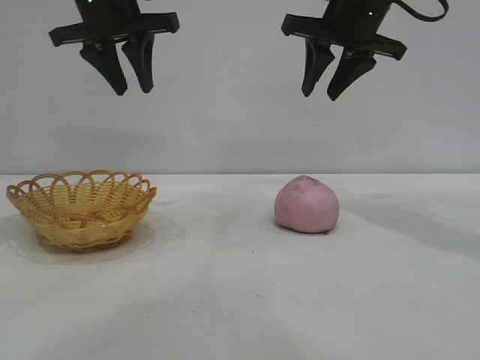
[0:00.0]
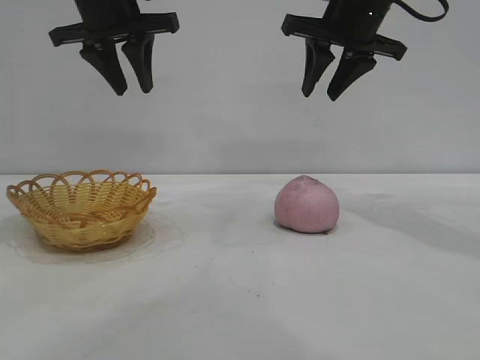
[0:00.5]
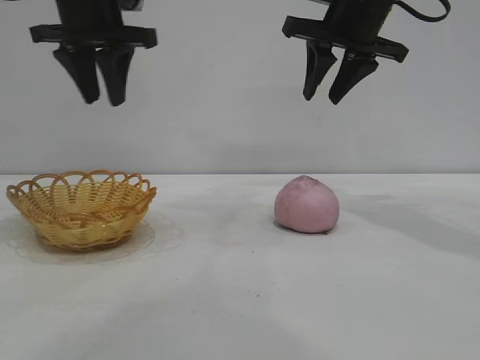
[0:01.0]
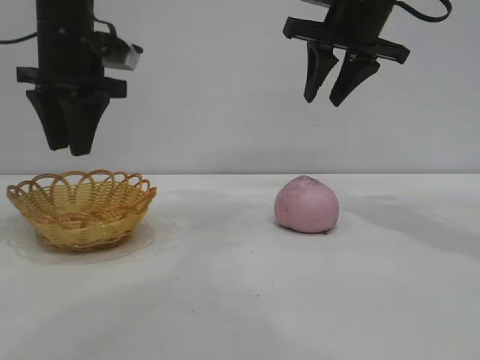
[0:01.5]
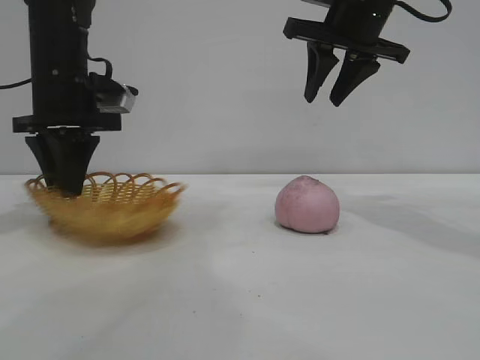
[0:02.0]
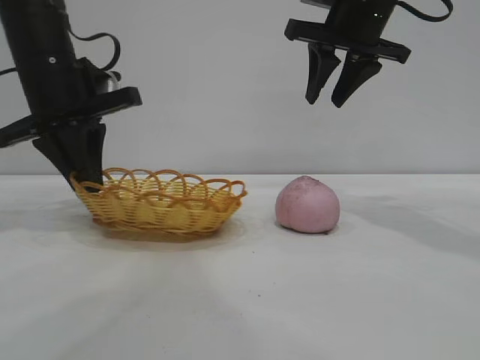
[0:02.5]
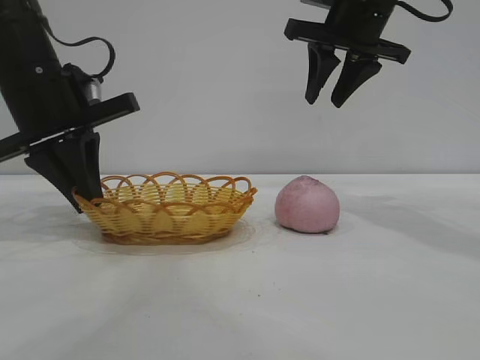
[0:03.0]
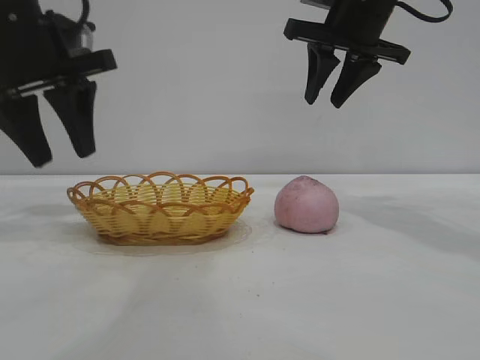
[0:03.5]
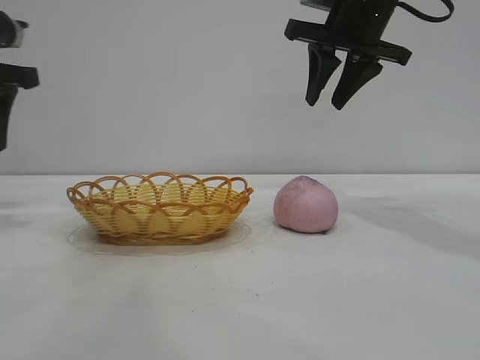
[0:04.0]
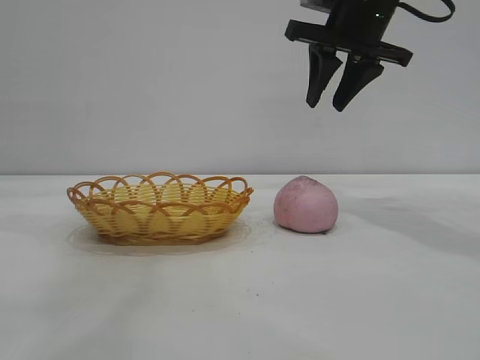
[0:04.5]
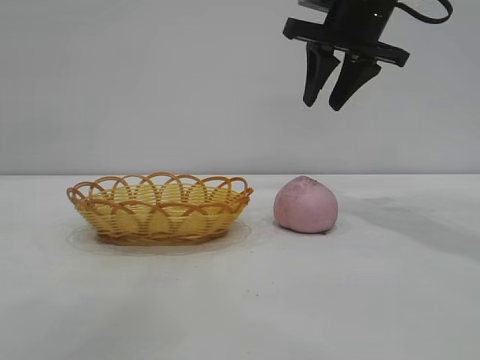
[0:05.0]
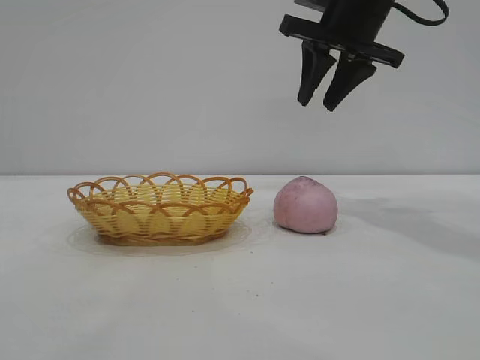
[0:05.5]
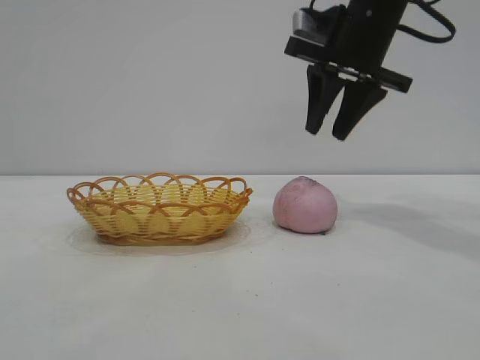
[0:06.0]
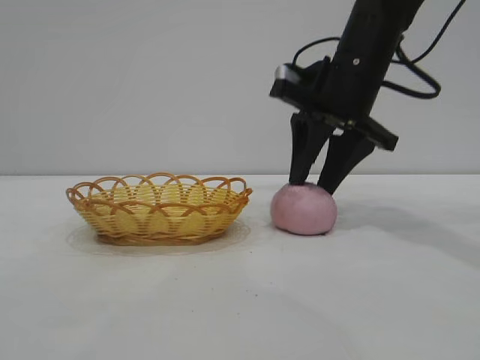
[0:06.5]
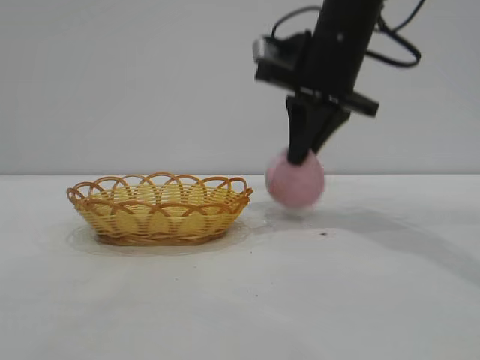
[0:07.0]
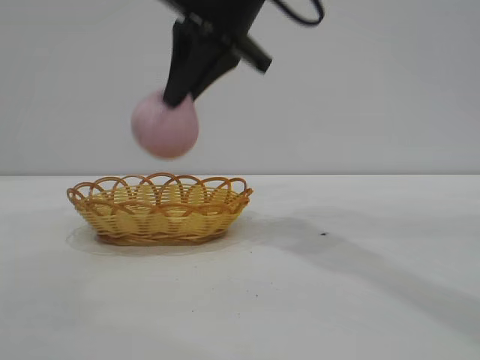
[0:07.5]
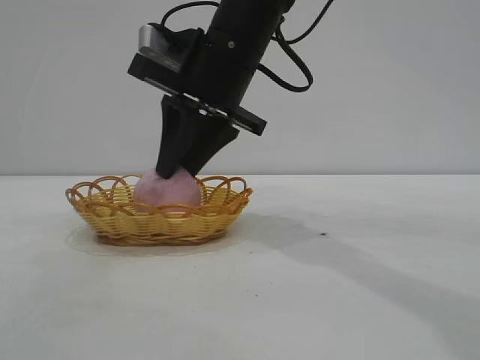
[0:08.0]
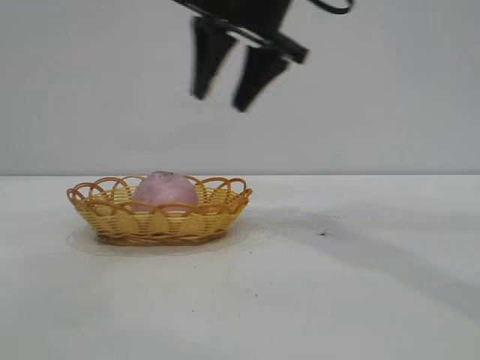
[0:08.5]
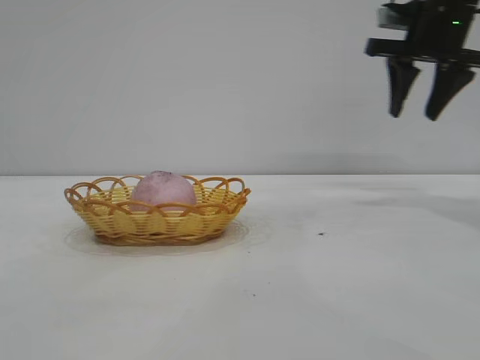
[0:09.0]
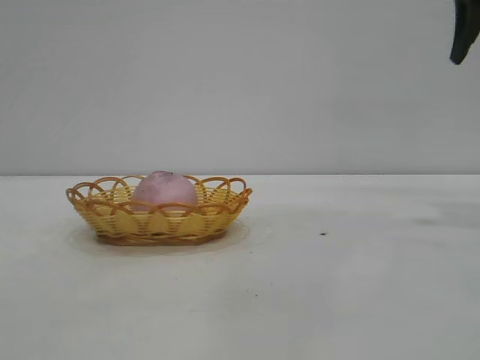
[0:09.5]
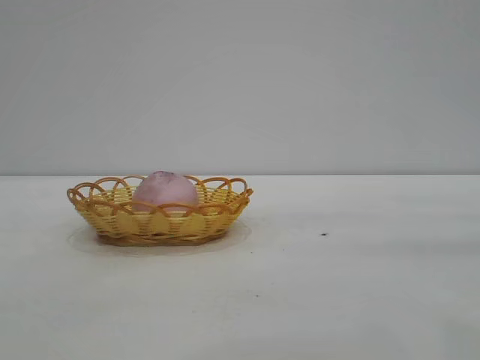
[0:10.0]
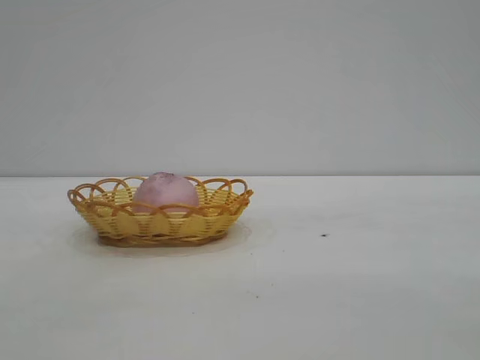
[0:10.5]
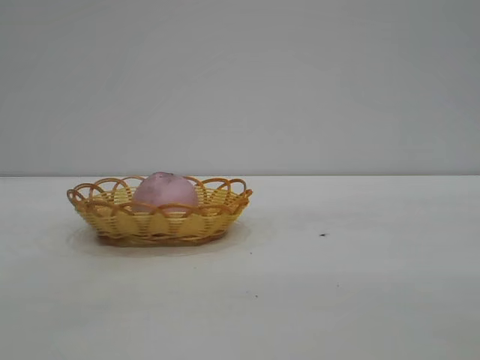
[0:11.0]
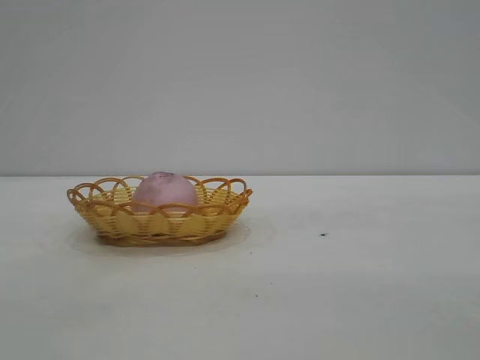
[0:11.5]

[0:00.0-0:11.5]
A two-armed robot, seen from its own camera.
Task of the whole recording: pick up the peach and put it into the basket.
Step, 0:00.0 to 0:03.0: Move the basket to the center of view.
Step, 0:04.0 to 0:07.0: Pick up the peach.
Step, 0:07.5 to 0:08.0: place the peach into the basket.

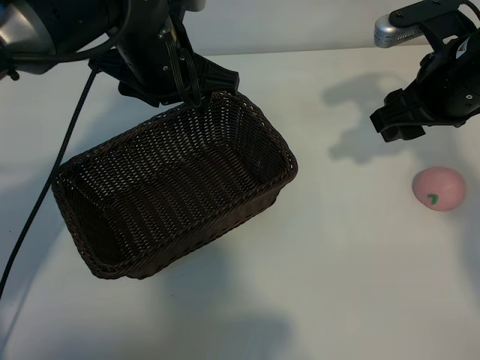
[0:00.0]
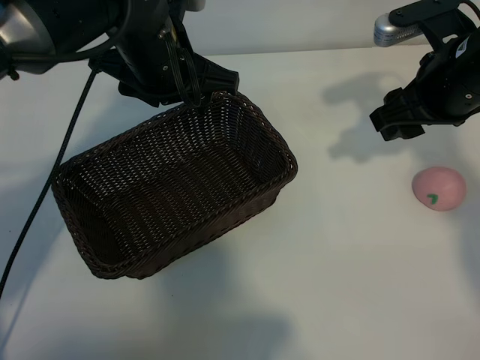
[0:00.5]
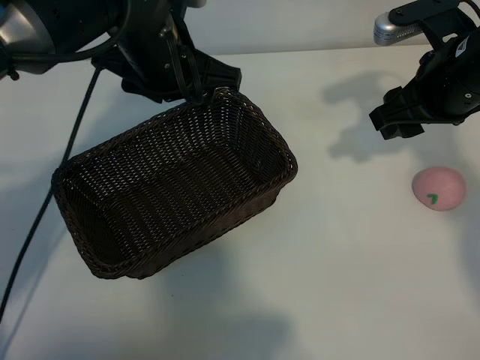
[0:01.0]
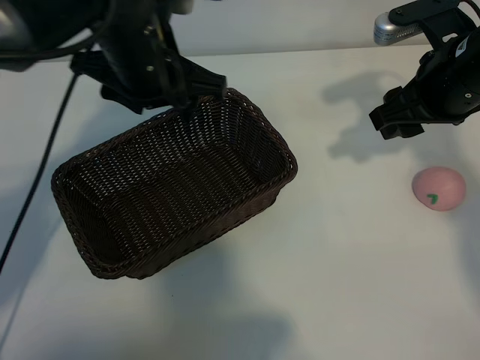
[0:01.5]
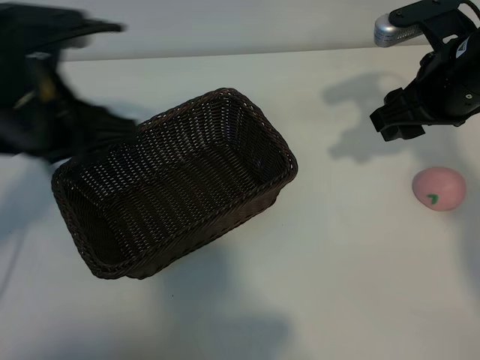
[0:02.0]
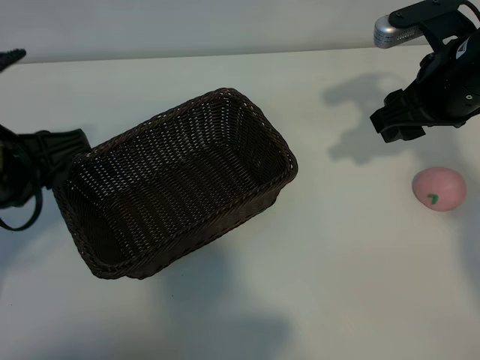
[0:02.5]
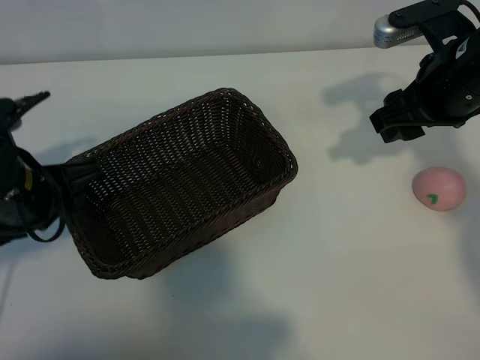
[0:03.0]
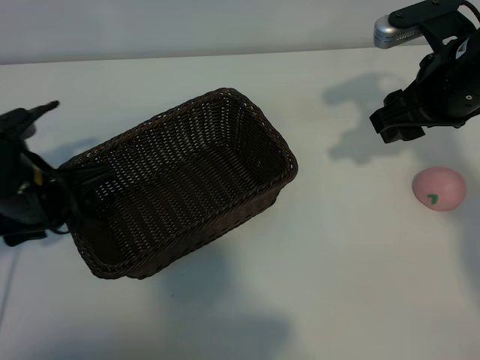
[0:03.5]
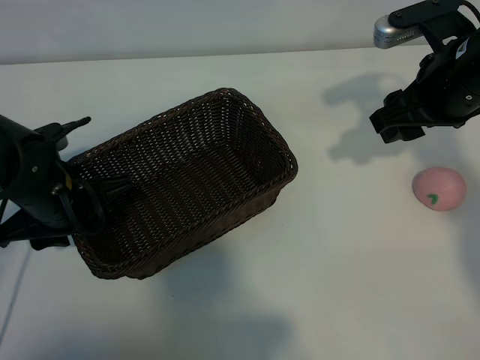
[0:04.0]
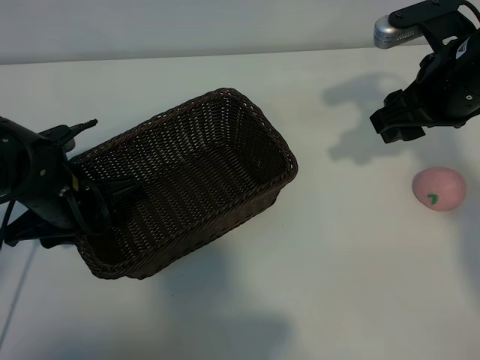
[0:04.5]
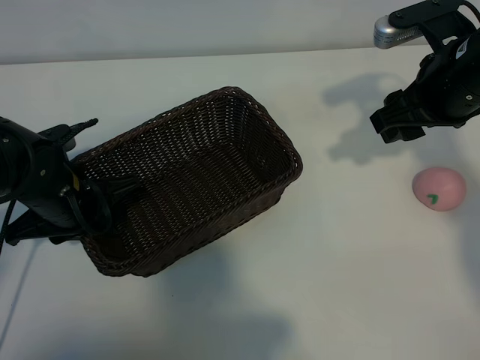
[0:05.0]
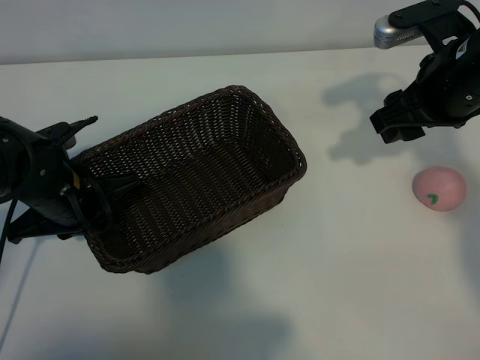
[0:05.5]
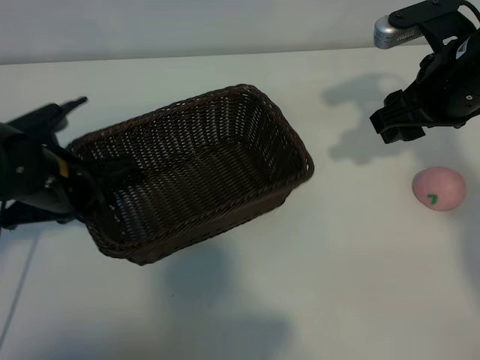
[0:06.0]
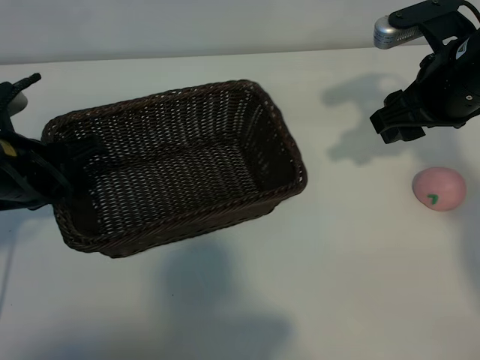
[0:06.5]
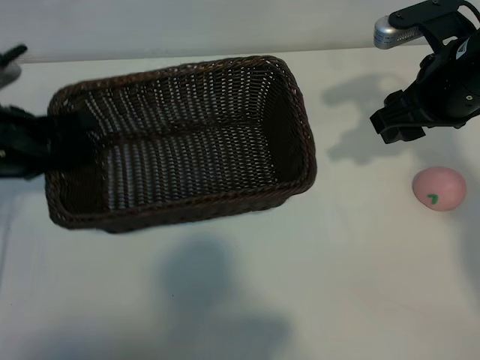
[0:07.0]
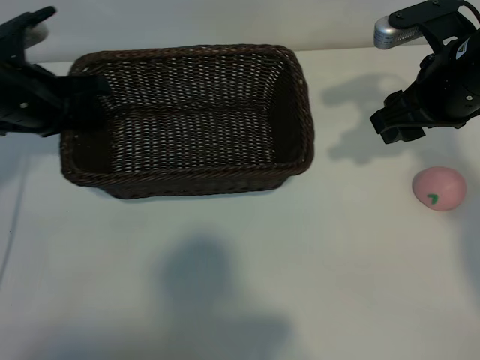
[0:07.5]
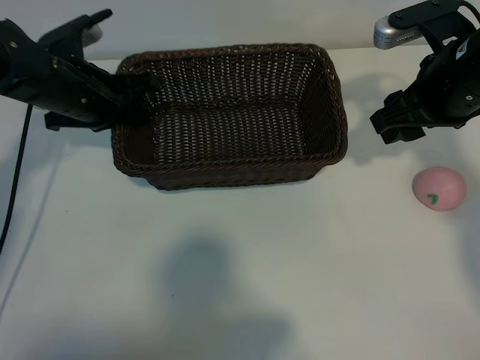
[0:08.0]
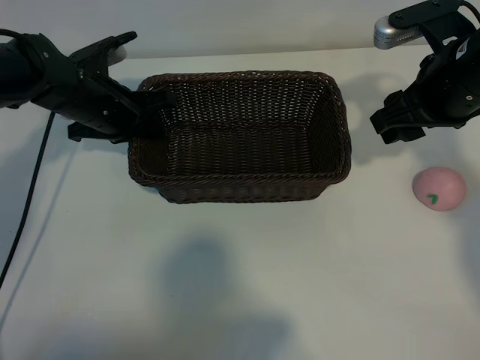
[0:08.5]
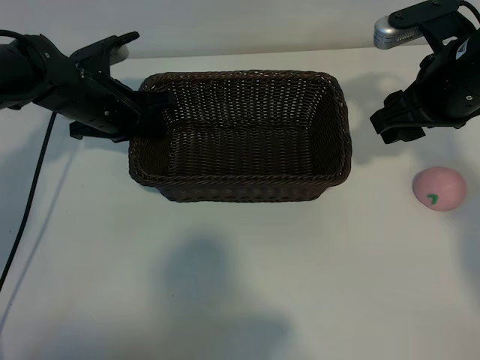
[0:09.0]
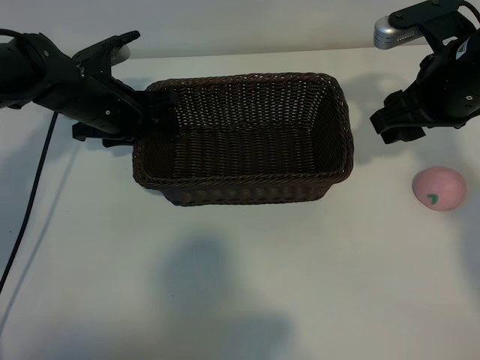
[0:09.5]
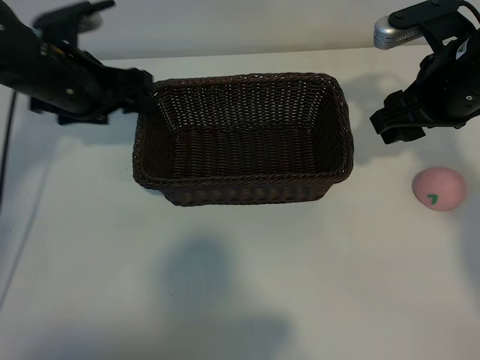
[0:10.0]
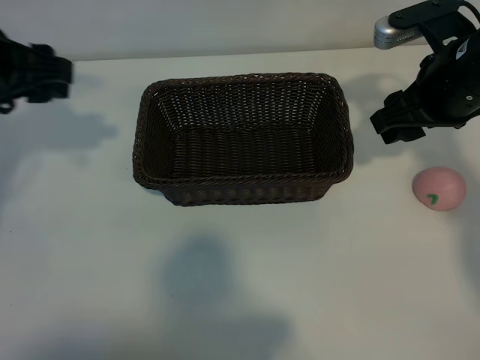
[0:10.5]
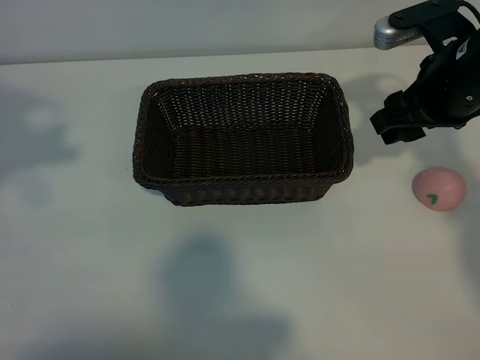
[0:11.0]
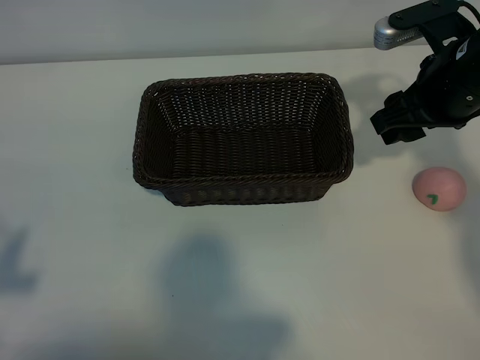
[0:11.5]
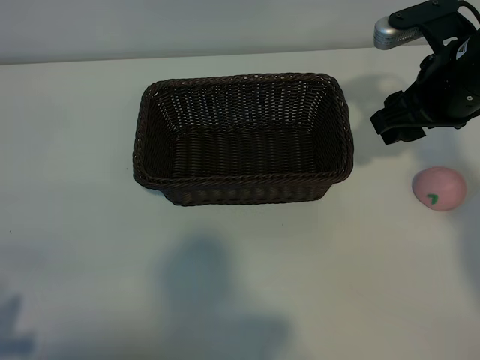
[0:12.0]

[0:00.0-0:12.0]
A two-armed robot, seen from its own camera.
Task of the whole recording: pick up the peach and put it into the basket.
Step, 0:01.0 to 0:05.5: Grasp the basket with left gripper.
Step, 0:06.0 to 0:09.5: Place the basket in the center of view with left gripper.

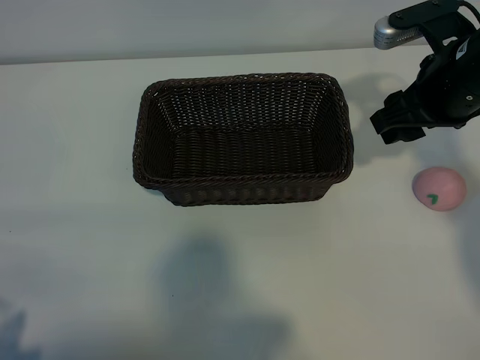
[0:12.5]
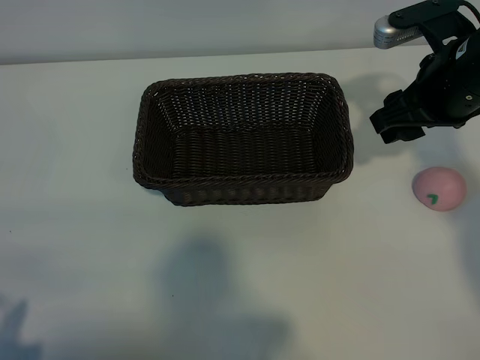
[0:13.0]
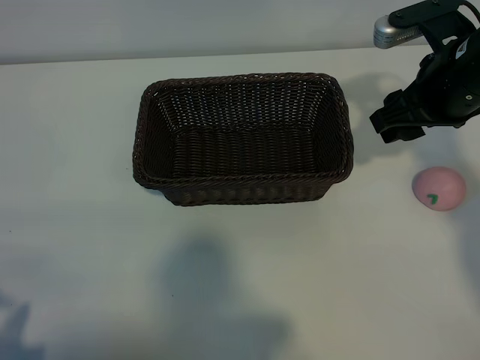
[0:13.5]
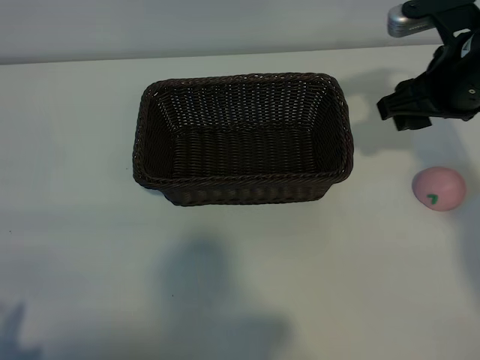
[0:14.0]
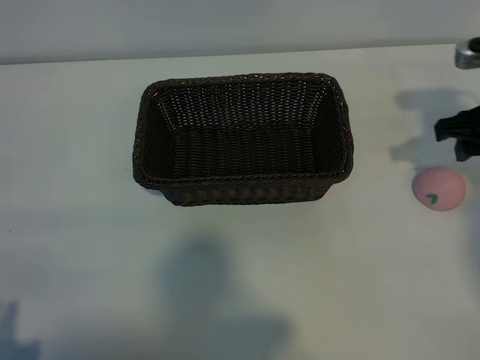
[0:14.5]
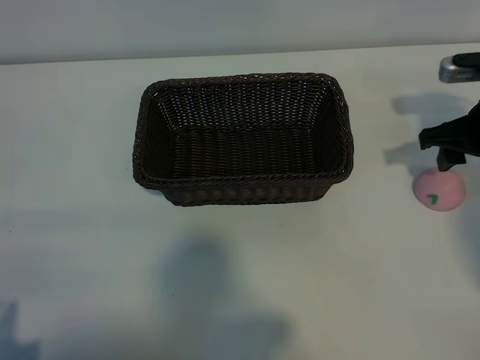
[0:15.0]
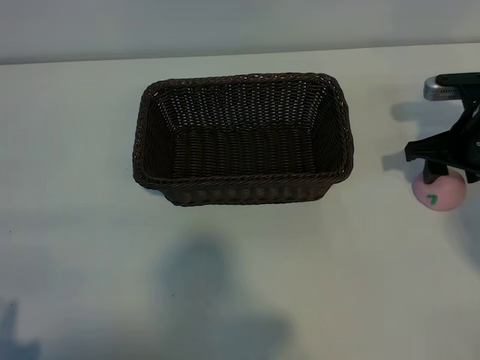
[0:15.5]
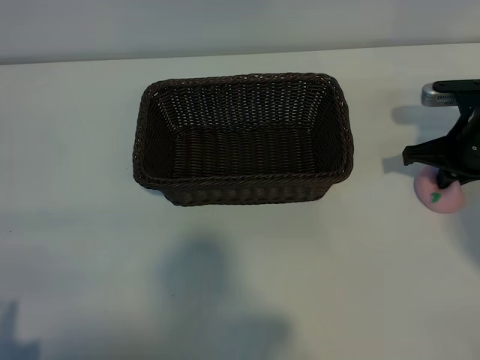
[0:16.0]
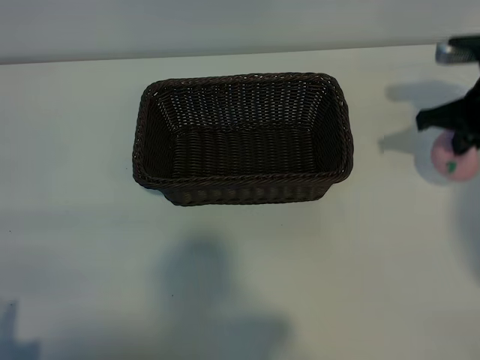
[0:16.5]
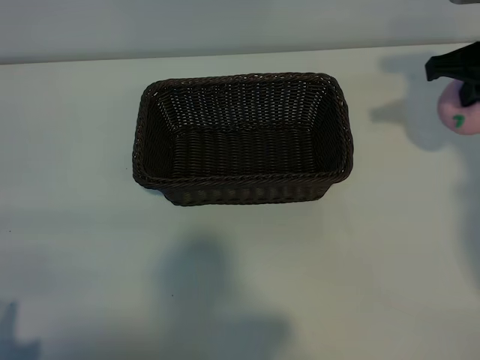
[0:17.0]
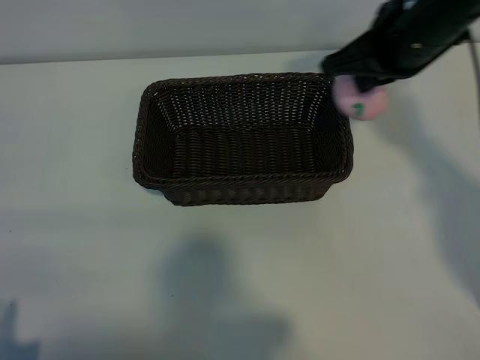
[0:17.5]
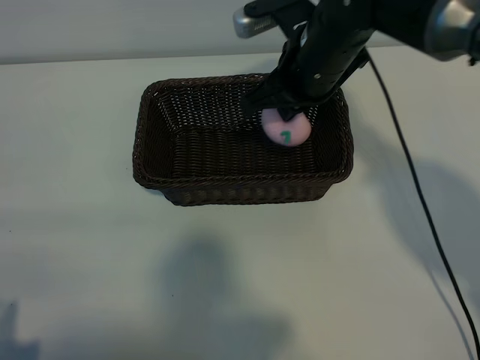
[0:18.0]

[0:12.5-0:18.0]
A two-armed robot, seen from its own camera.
Task of the whole recording: pick up the peach and put it into the basket.
Step, 0:12.5 to 0:16.0: Grasp the peach with right gripper.
